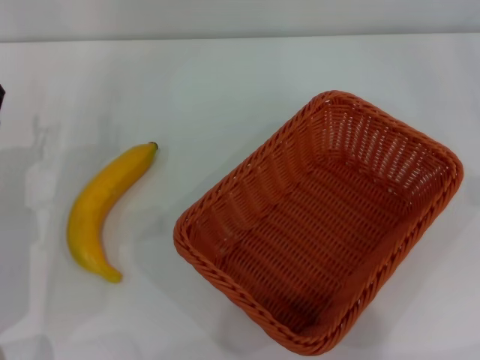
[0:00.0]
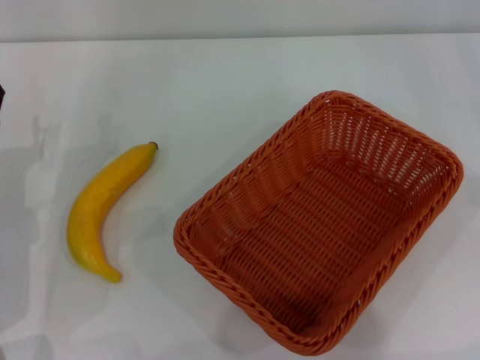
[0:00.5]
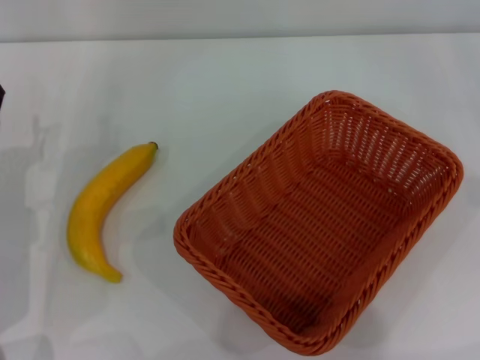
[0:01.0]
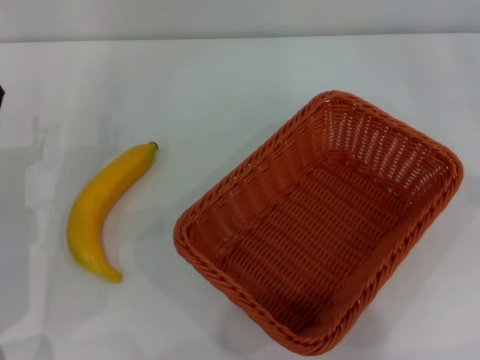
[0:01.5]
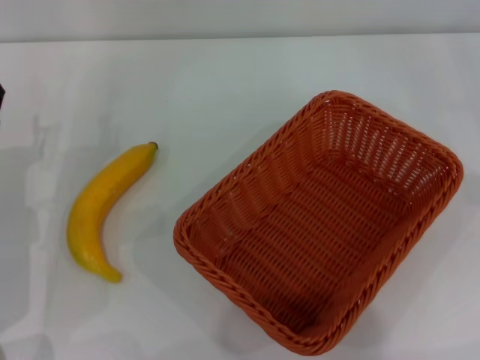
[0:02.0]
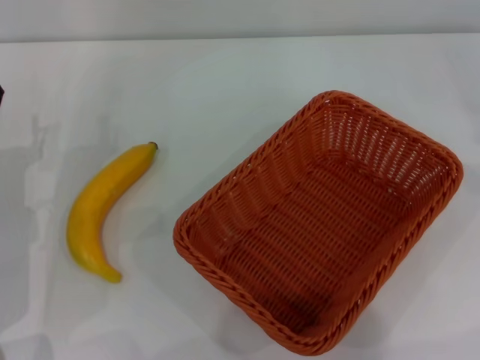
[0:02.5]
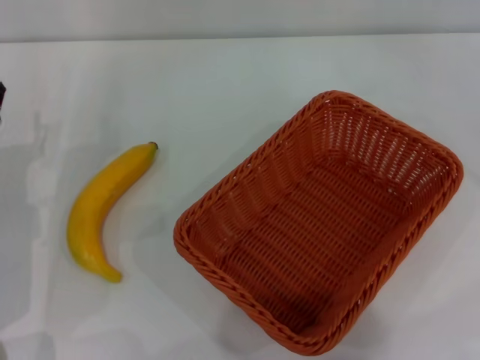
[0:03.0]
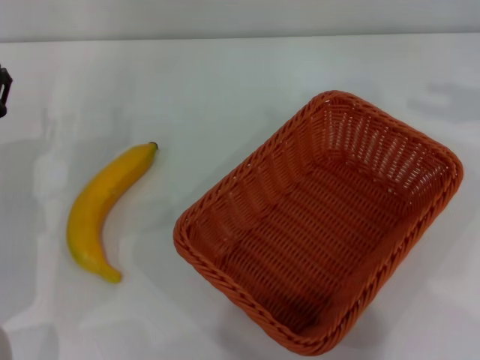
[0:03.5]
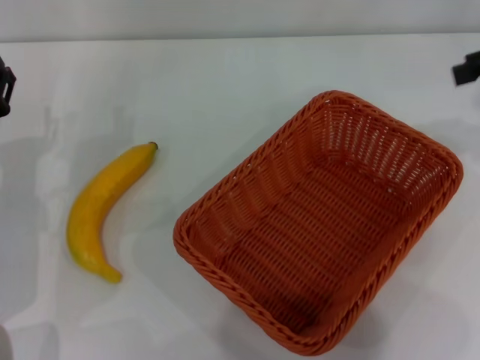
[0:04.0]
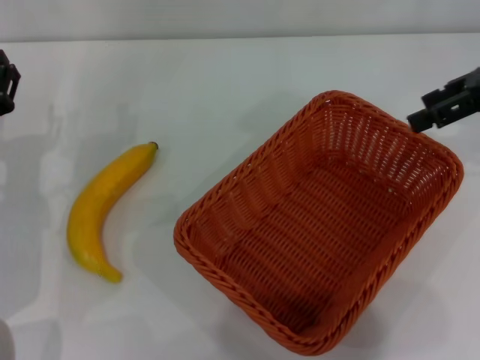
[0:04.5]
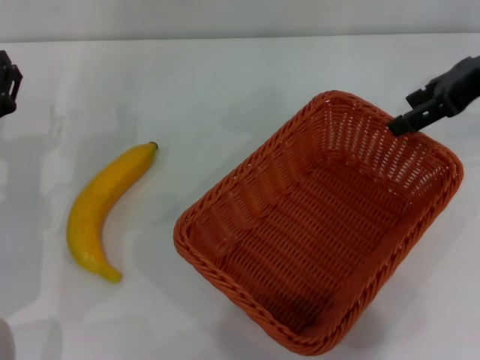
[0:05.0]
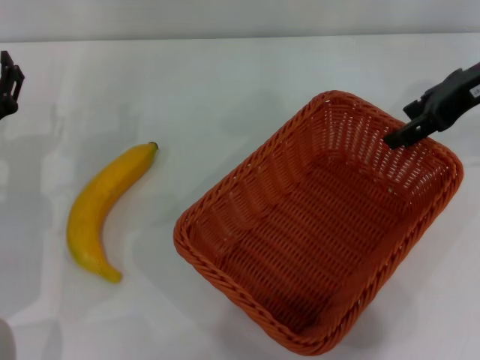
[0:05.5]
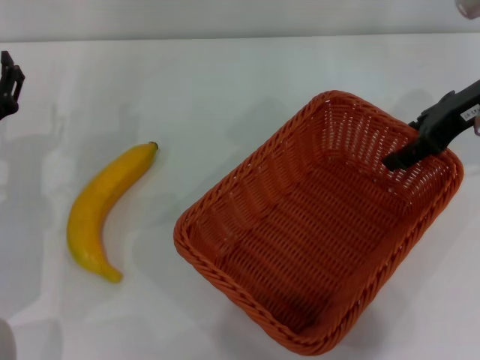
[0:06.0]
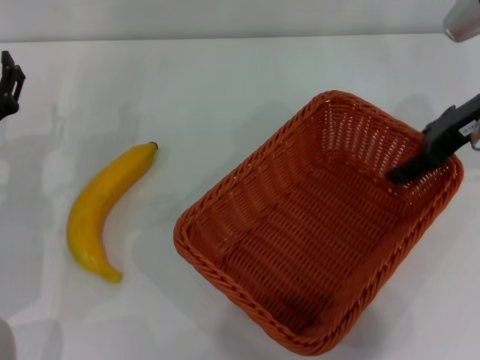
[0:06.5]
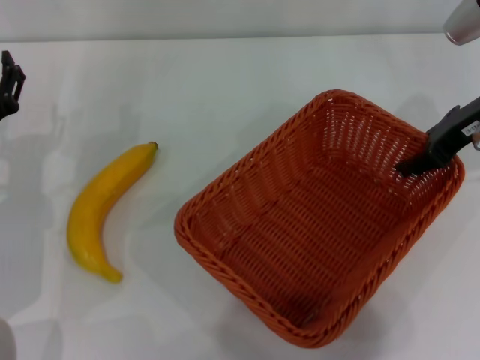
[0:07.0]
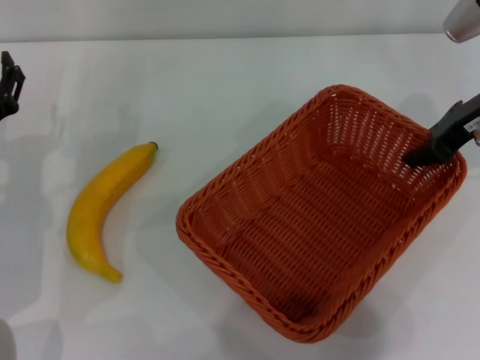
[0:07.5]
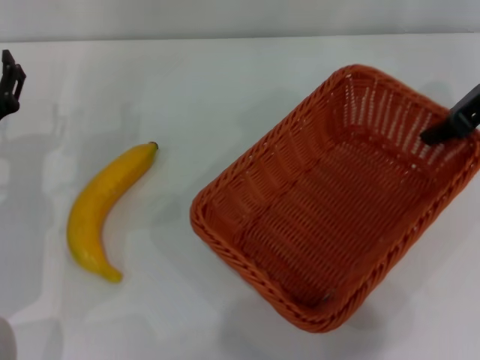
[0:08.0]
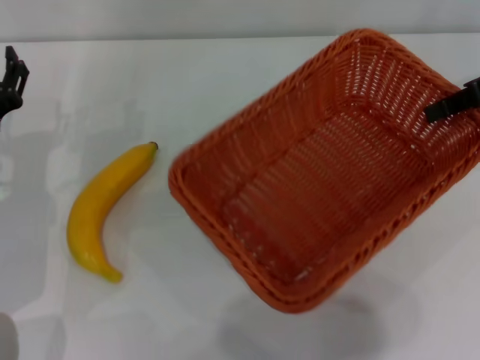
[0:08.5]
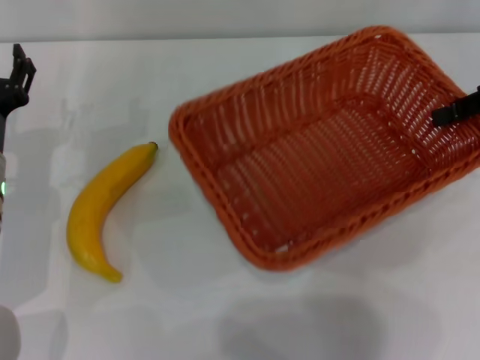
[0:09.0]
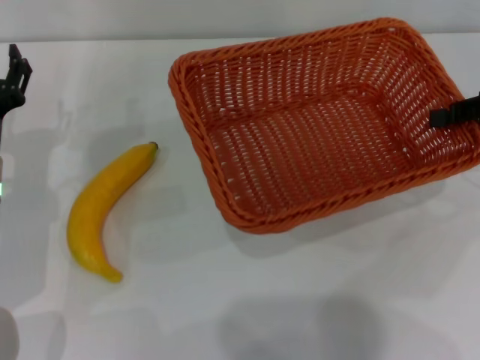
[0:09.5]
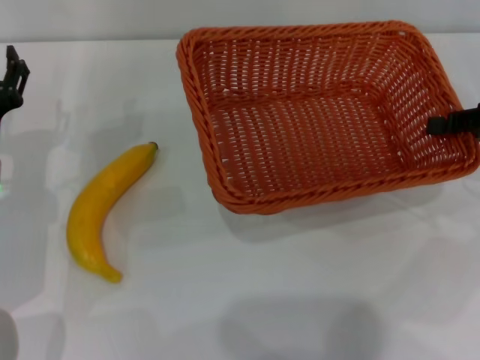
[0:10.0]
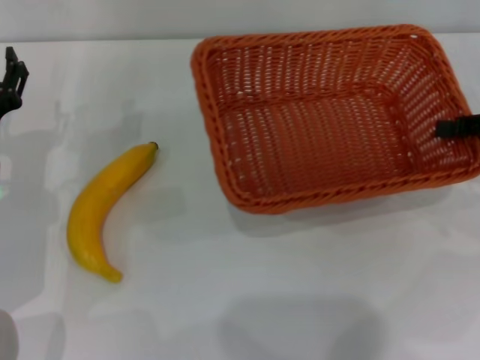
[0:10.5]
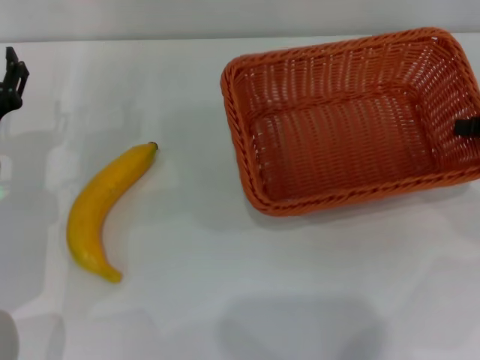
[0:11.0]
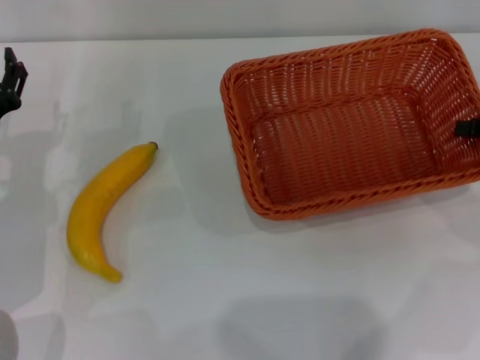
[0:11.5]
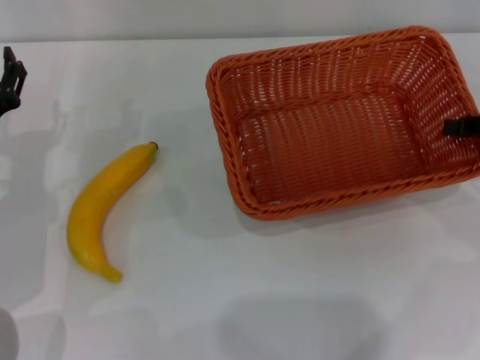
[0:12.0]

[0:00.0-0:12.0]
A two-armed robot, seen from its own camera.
Step, 0.0 to 8.0 s: Pick up the light basket with the right gripper.
0.0 to 2.0 s: Both grippers stay about where they are.
2.0 to 4.0 s: The right gripper travels upward, to the left and forward by approximately 20 cm.
4.0 to 6.0 s: The right gripper goes some 10 cm to the left and downward.
6.0 to 8.0 s: The right gripper closes up.
8.0 to 10.0 s: The right gripper moves to the right, downward and backward, roughly 10 cm.
10.0 to 12.0 s: There are only small adjustments of the grippers.

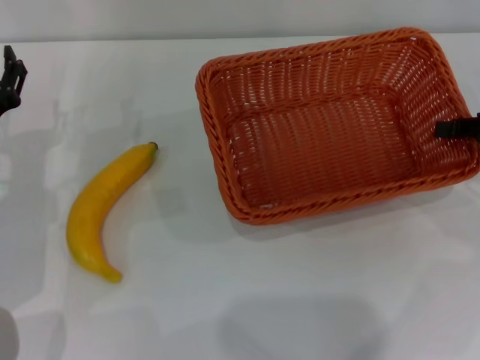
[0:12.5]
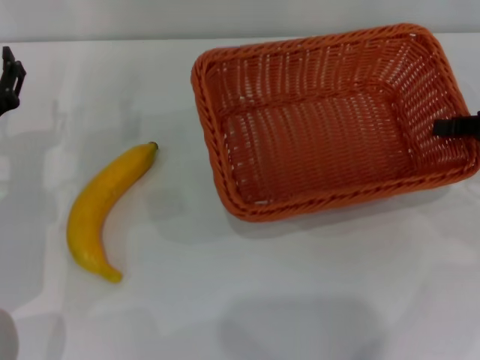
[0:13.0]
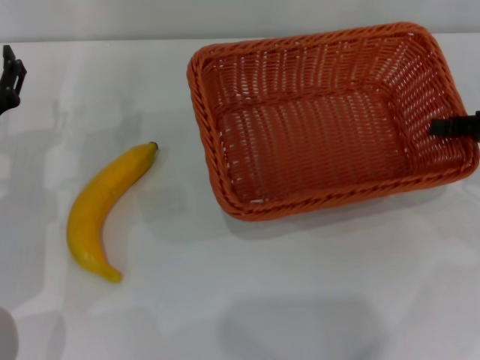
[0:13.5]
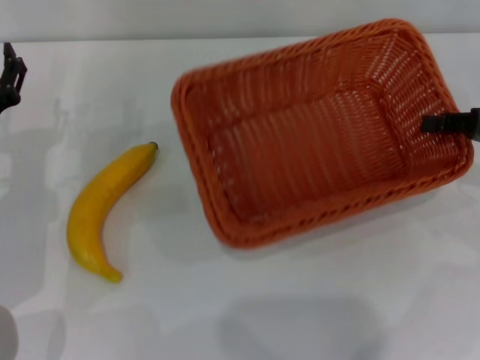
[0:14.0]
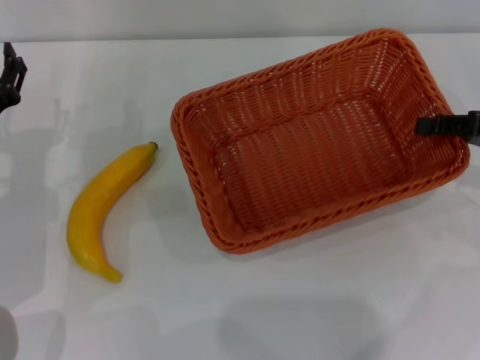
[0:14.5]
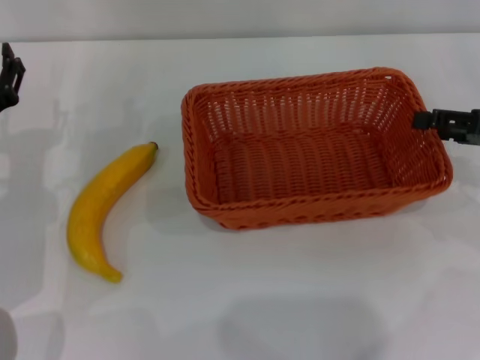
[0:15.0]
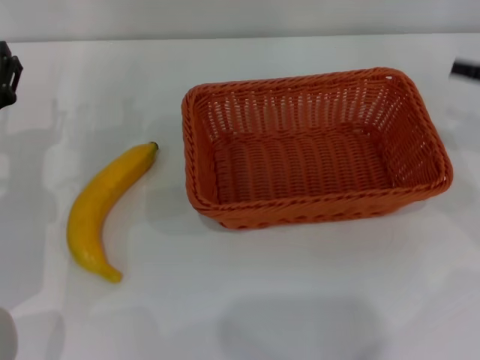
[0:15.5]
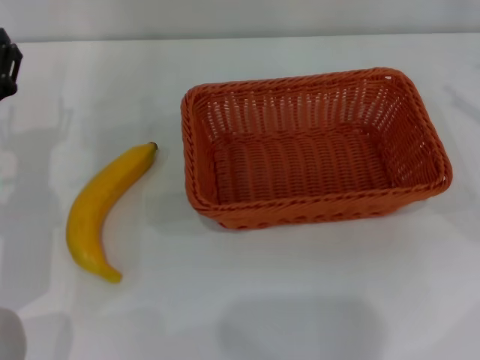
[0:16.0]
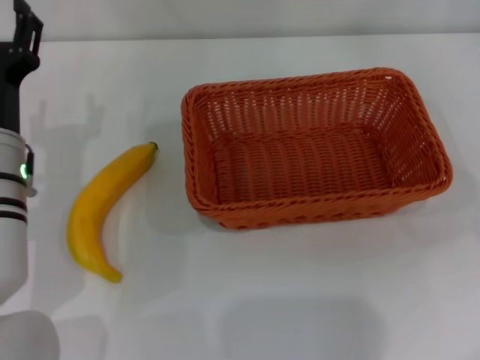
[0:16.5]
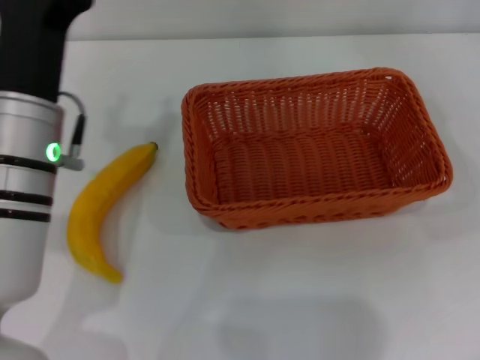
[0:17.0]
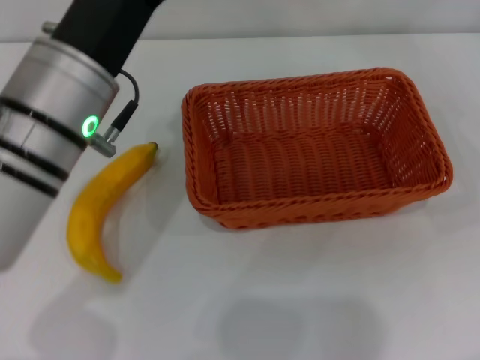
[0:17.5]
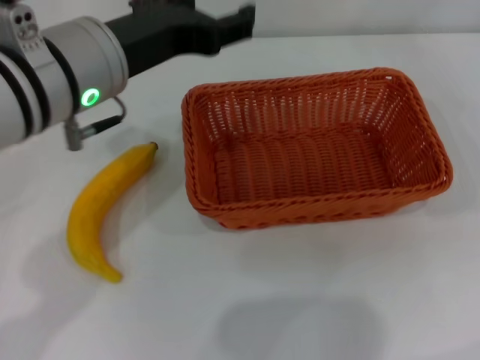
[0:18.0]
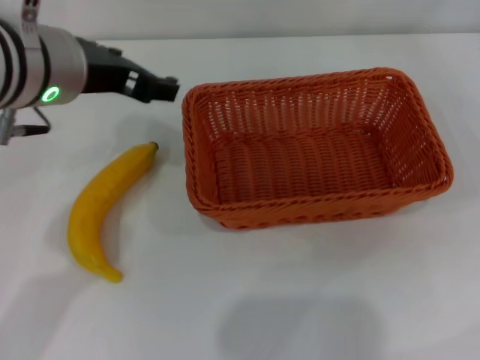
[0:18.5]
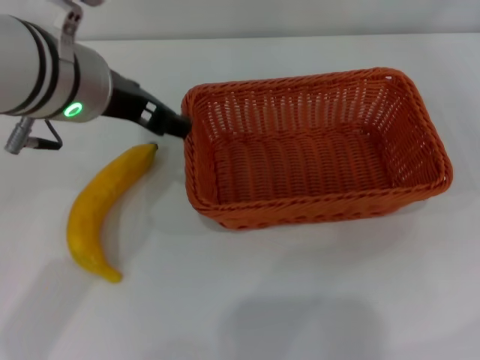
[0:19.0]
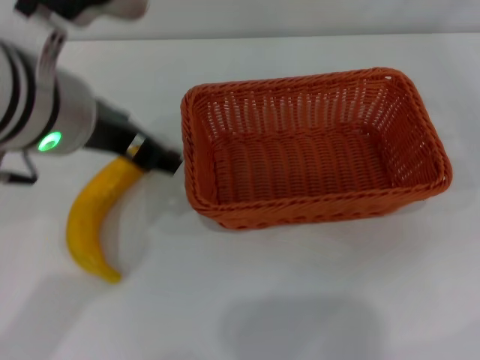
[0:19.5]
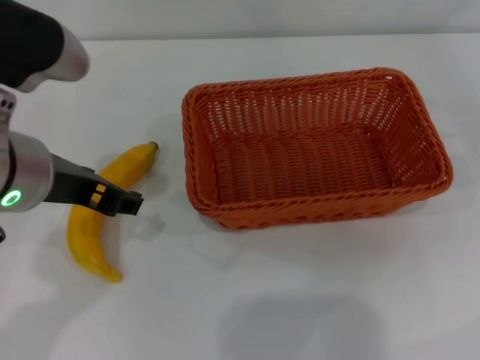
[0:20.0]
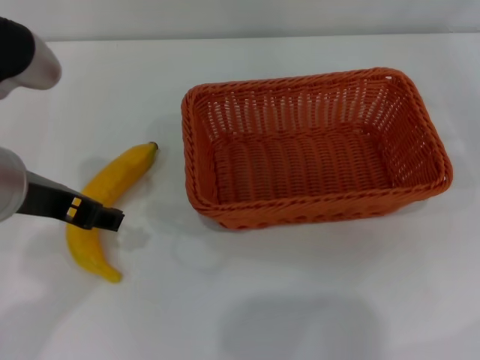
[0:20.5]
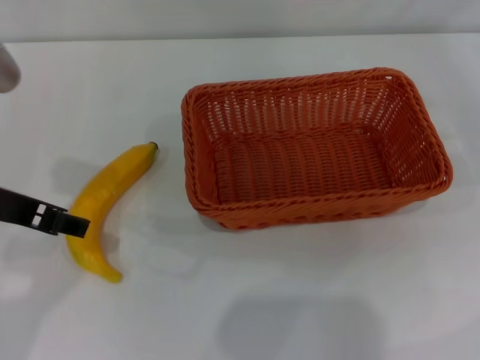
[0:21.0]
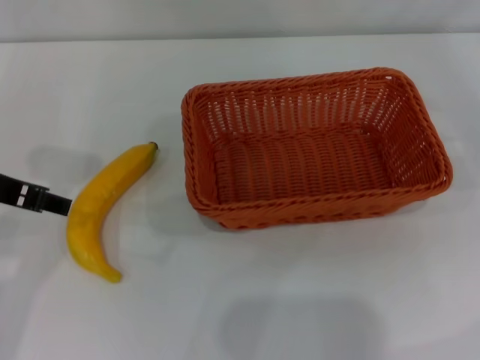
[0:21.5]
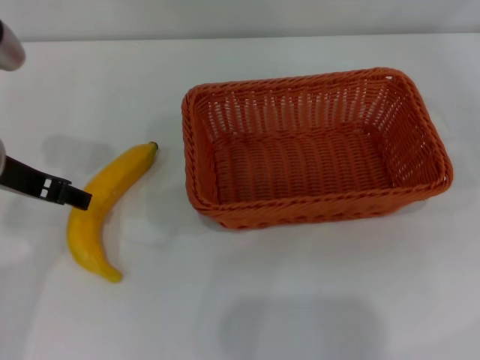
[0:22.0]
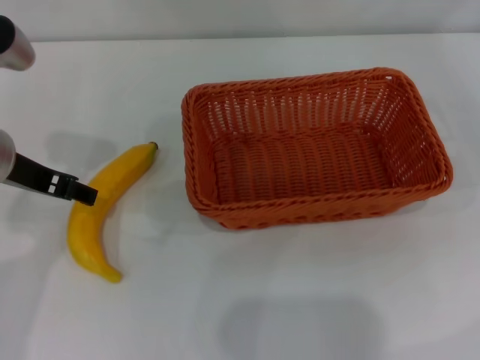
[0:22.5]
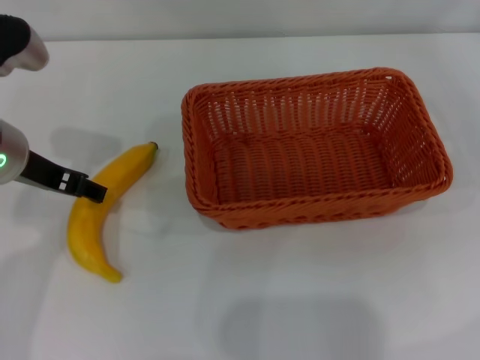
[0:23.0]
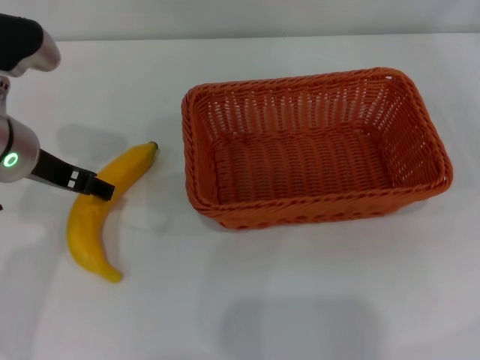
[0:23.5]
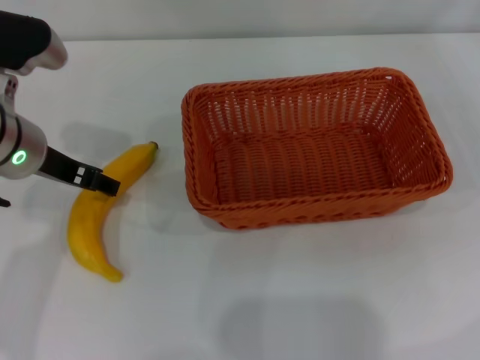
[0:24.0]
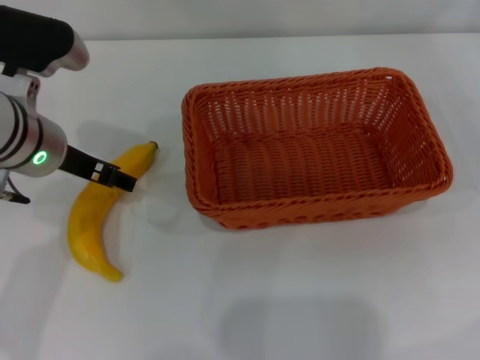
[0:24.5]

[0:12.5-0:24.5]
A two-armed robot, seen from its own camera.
Step, 12.5 to 15.0 s: Place the light basket in the center of view with the right gripper.
12.5 to 14.5 s: The grippers stay close to where they were, moving slightly.
14.5 to 16.5 s: The right gripper is displaced to the right by about 10 cm, and opens up; the left gripper shifts by some 5 cm.
16.5 to 18.5 s: The left gripper heads upward, covering roughly 15 cm.
18.5 to 20.5 s: The left gripper is displaced backward by approximately 5 cm.
20.5 to 22.5 s: The left gripper shifts roughly 5 cm forward.
22.5 to 24.5 s: The grippers make only small movements.

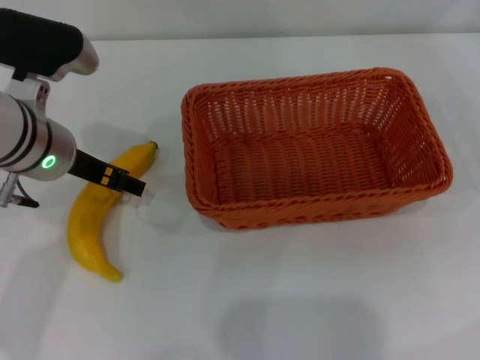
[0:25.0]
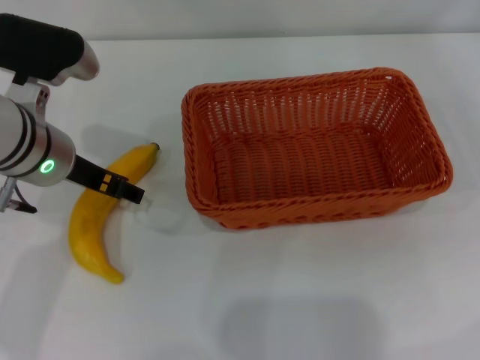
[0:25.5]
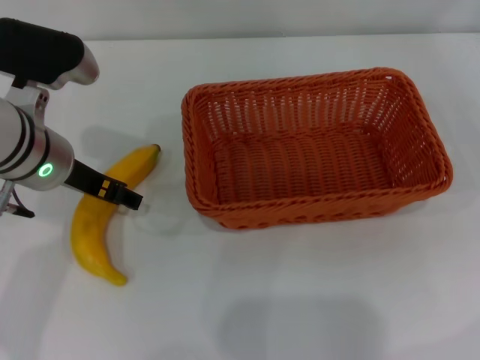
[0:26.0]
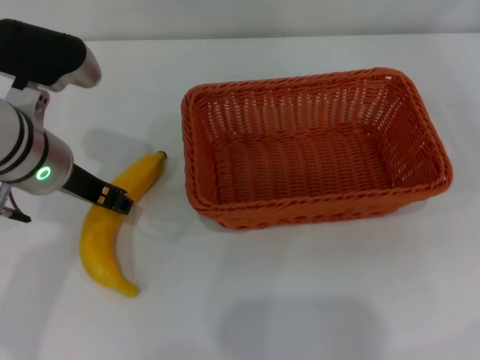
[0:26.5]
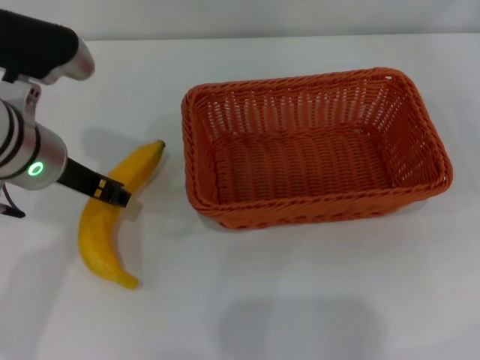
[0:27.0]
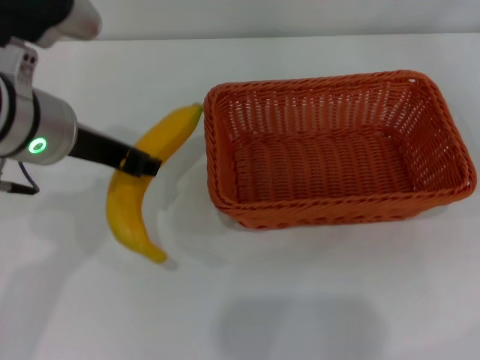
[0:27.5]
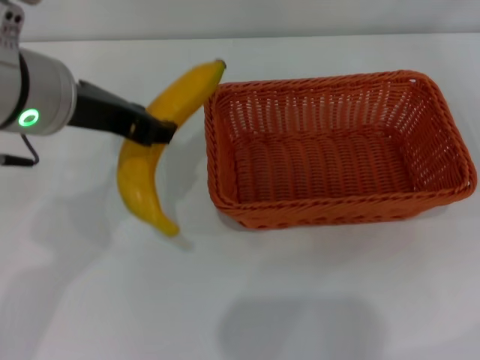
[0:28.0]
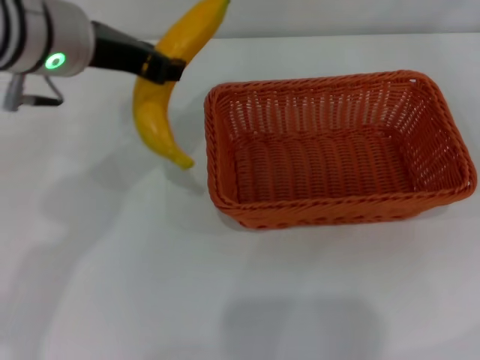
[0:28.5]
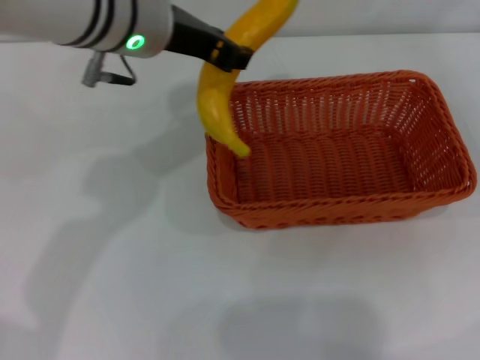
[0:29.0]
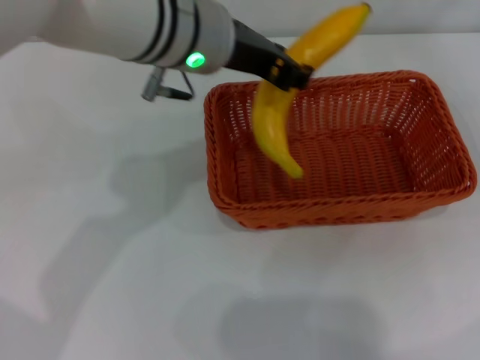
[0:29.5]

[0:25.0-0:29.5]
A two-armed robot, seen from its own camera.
Step, 25.0 to 27.0 s: Pick up the banana with the left gripper.
25.0 to 27.0 s: The left gripper closes.
27.0 to 29.5 s: The left gripper shifts about 15 cm to the right and upward.
